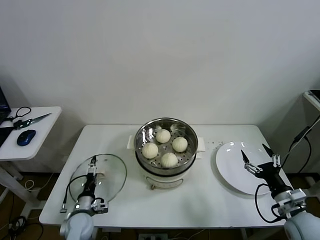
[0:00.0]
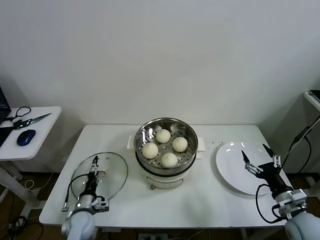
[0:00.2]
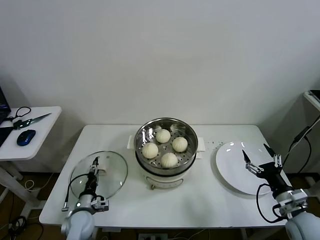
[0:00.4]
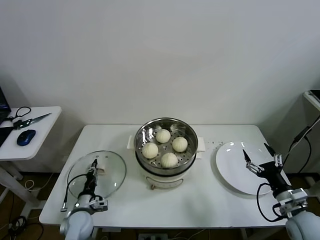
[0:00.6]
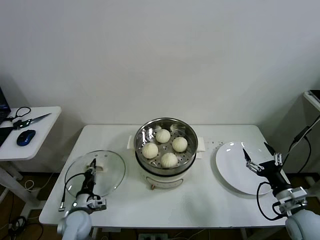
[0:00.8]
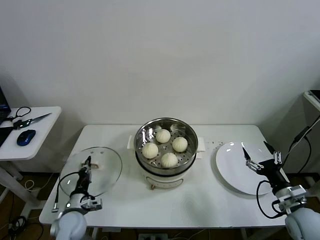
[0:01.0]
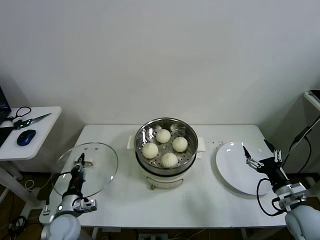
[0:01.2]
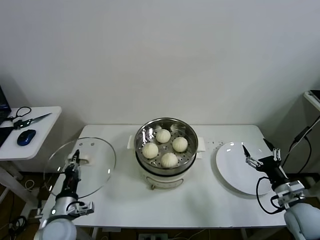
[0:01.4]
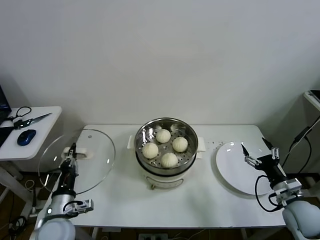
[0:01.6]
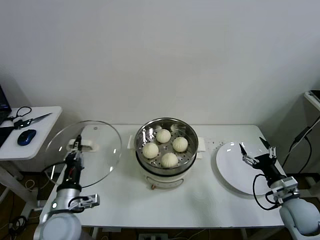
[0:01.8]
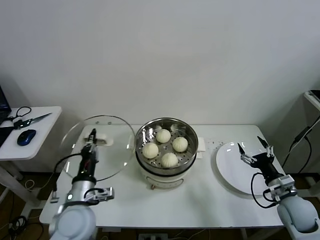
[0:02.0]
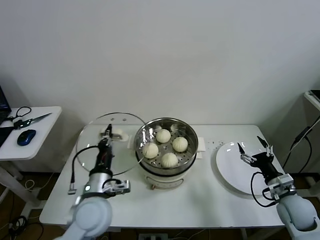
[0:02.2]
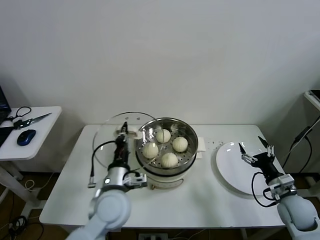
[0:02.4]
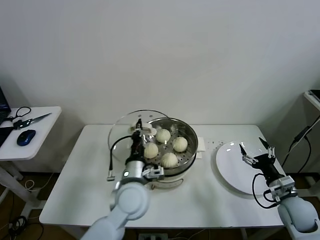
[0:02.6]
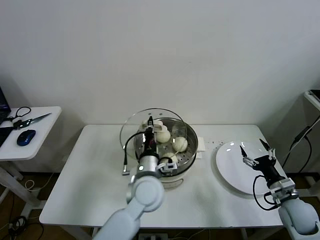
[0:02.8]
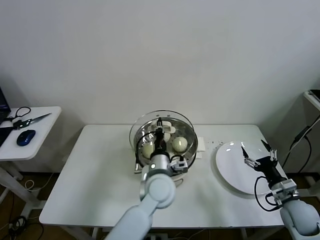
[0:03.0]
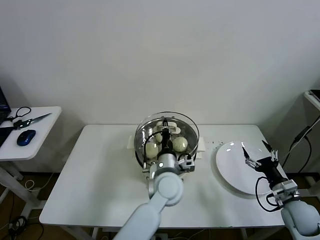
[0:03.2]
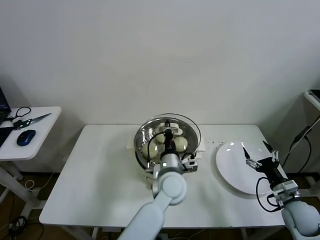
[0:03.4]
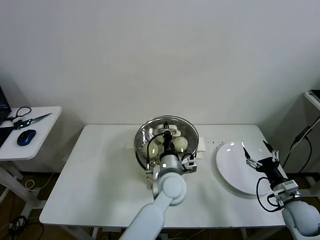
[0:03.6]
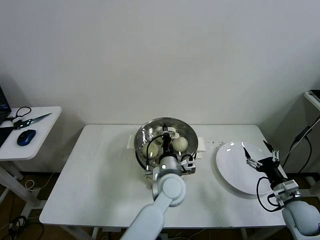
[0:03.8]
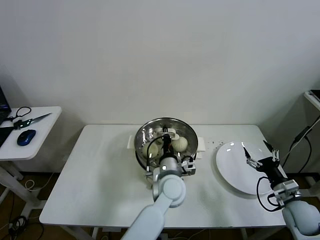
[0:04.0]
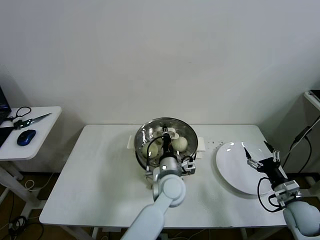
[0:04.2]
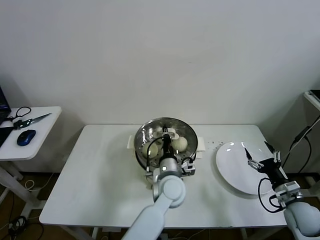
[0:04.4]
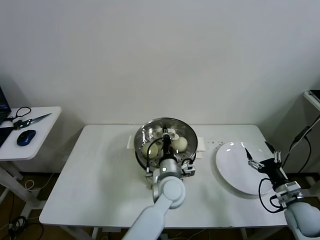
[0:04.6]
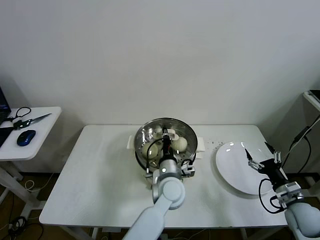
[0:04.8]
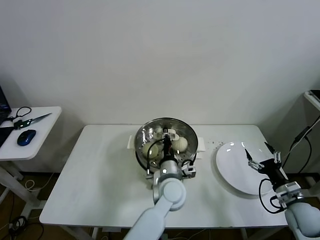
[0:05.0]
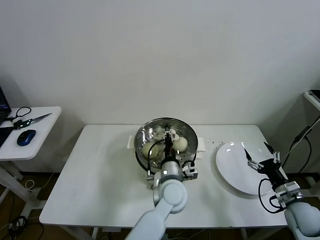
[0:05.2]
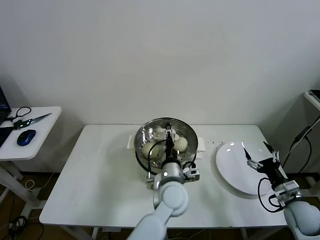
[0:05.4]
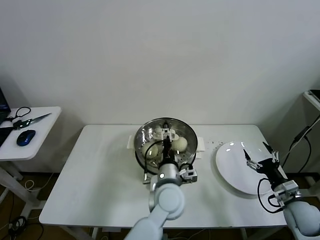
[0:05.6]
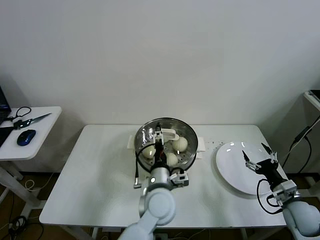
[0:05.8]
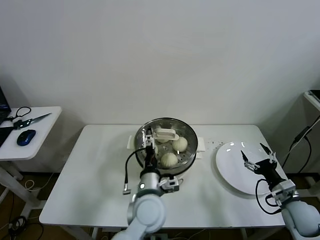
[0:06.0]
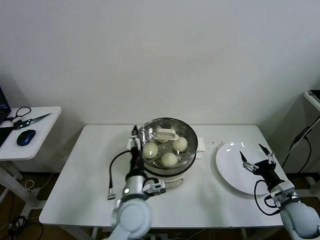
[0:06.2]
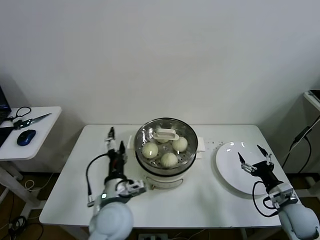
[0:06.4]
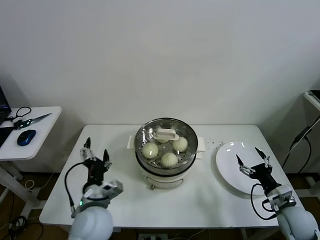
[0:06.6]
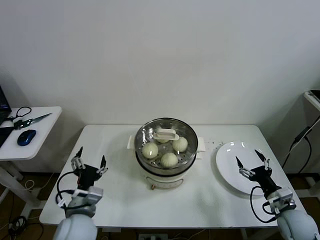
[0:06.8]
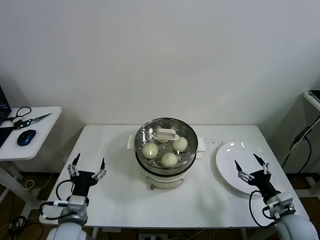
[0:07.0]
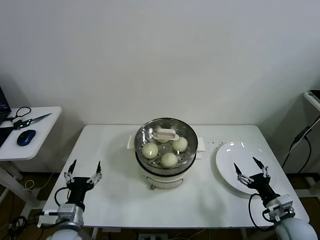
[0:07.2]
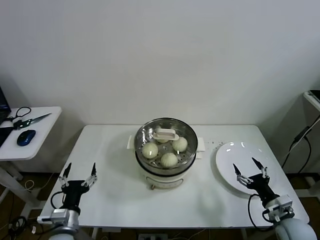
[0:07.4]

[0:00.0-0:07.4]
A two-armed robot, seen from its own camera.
Task of the whole recording: take steamed baozi put them in steamer then cover it.
Step, 0:01.0 to 0:05.4: Place the pot lid on the steamer with left gripper.
0:00.0 to 0:01.4: The left gripper shifts roughly 10 cm upward, and closes up.
0:01.4 to 0:03.0: The left gripper heads to the right, covering approximately 30 cm.
0:03.0 to 0:04.4: The left gripper changes place by approximately 5 cm.
0:04.4 to 0:06.0: The left gripper is displaced backward and to the left by some 10 cm, and opens up.
0:06.0 to 0:07.4: The right gripper changes place by approximately 5 cm. The left gripper travels to the left by some 25 cm.

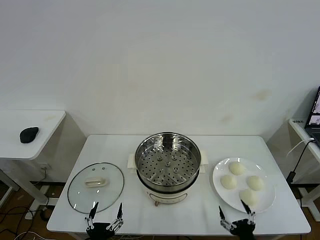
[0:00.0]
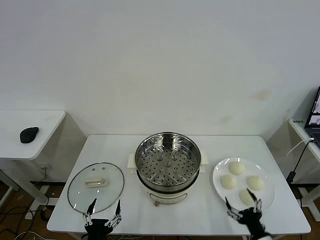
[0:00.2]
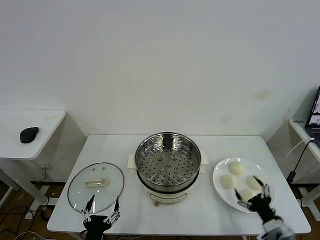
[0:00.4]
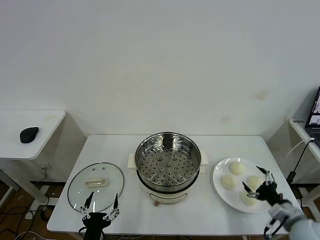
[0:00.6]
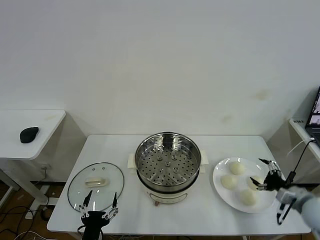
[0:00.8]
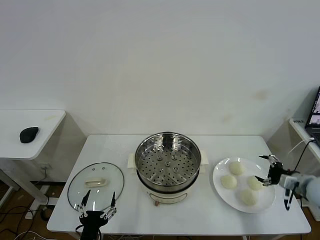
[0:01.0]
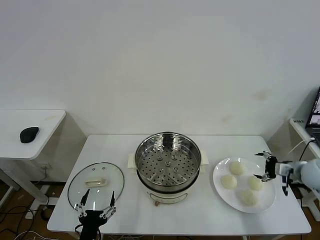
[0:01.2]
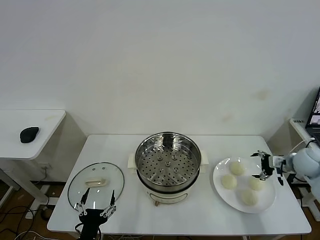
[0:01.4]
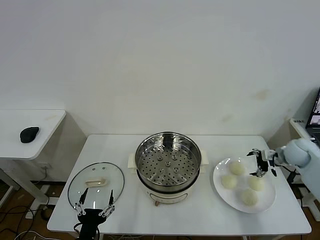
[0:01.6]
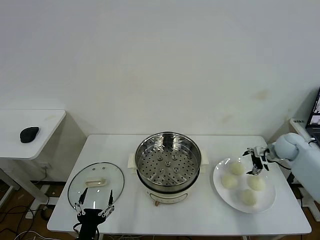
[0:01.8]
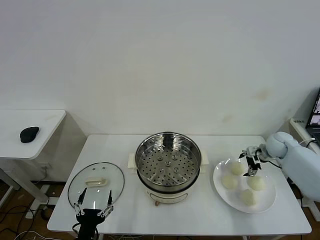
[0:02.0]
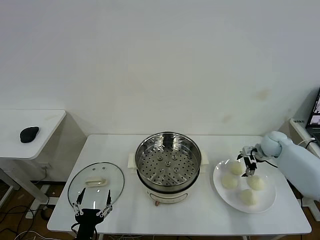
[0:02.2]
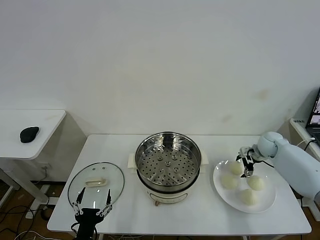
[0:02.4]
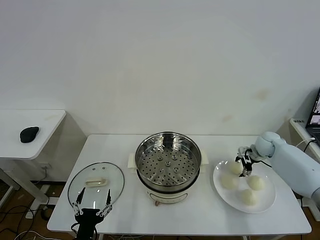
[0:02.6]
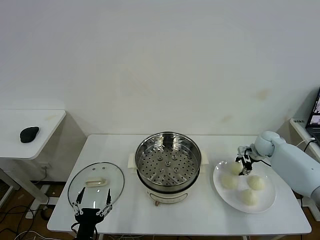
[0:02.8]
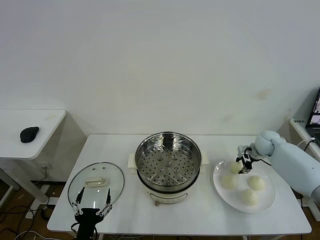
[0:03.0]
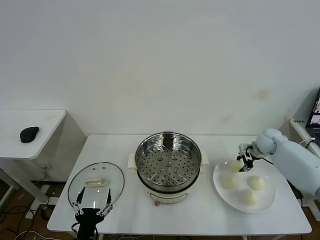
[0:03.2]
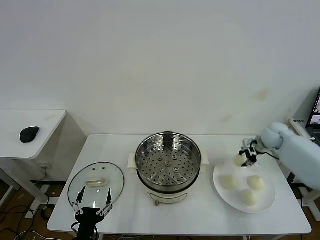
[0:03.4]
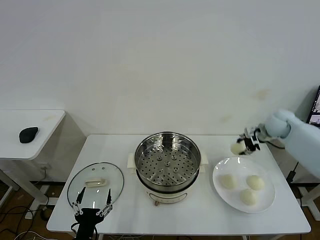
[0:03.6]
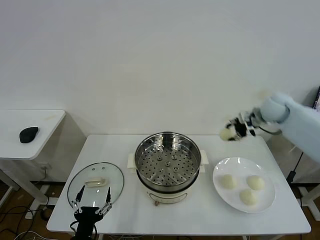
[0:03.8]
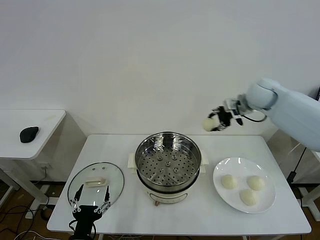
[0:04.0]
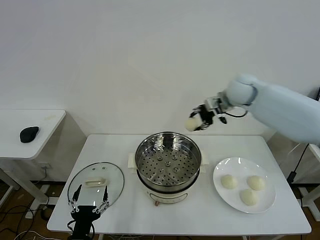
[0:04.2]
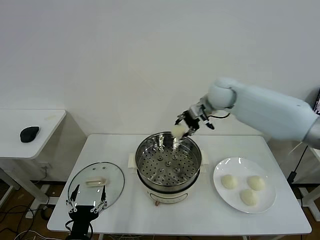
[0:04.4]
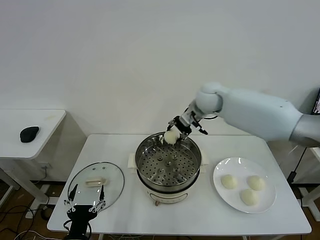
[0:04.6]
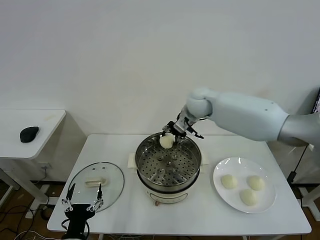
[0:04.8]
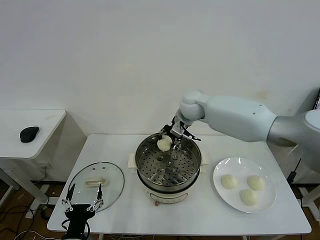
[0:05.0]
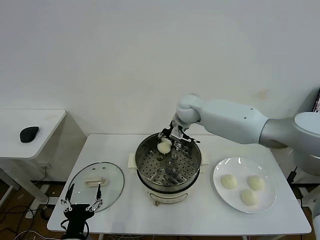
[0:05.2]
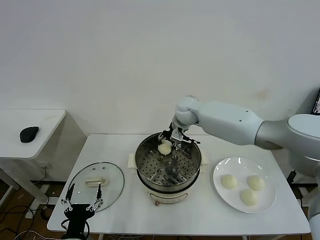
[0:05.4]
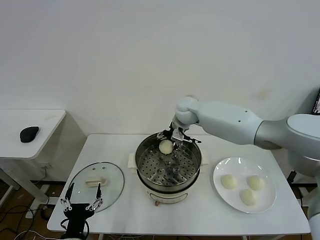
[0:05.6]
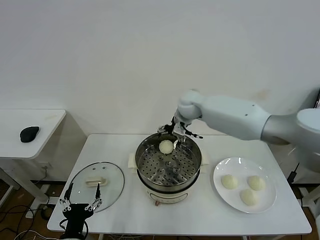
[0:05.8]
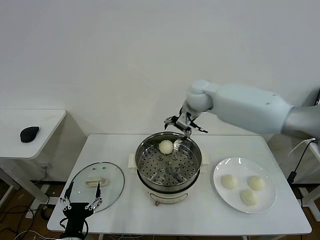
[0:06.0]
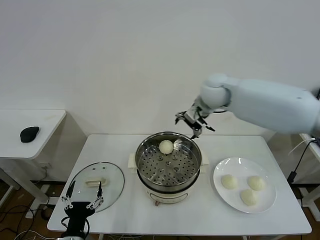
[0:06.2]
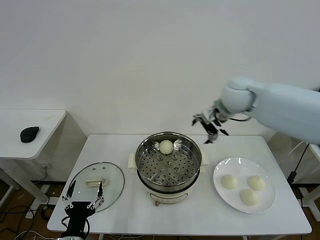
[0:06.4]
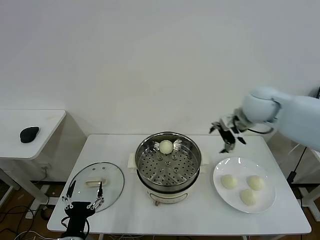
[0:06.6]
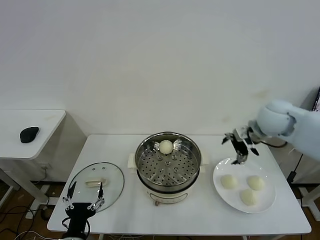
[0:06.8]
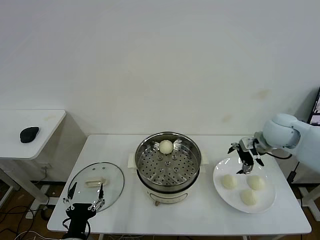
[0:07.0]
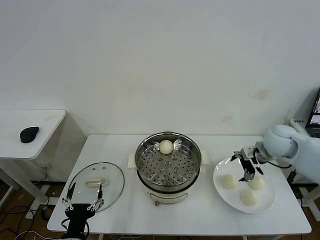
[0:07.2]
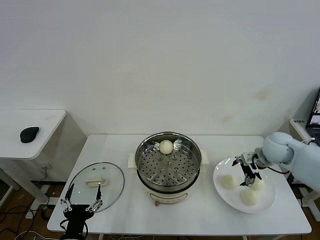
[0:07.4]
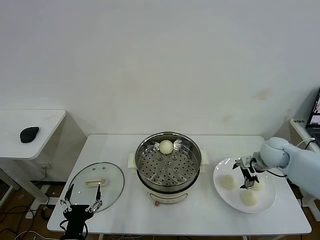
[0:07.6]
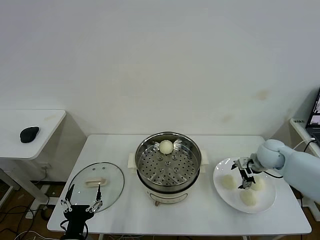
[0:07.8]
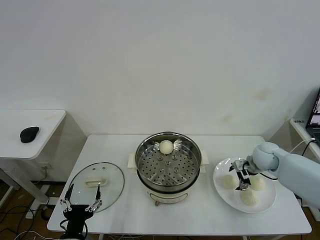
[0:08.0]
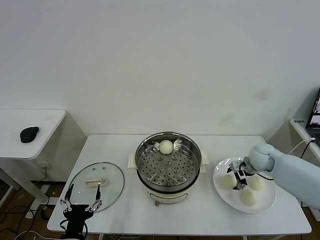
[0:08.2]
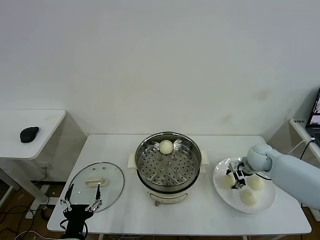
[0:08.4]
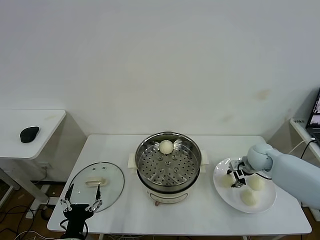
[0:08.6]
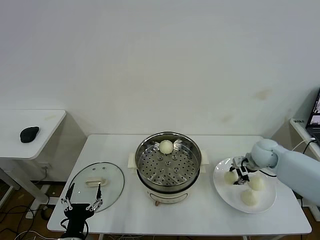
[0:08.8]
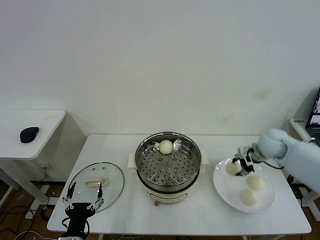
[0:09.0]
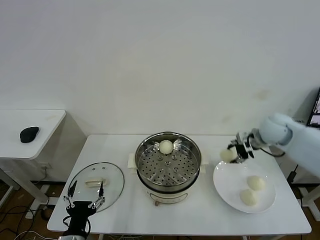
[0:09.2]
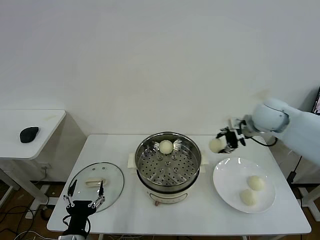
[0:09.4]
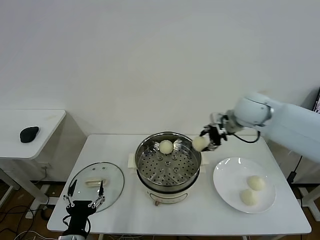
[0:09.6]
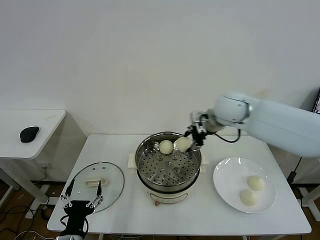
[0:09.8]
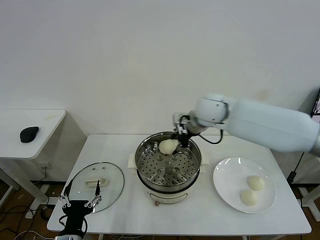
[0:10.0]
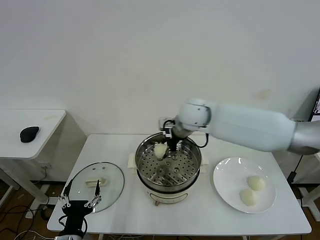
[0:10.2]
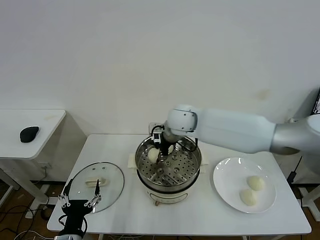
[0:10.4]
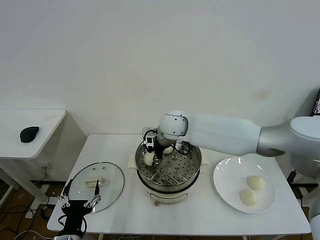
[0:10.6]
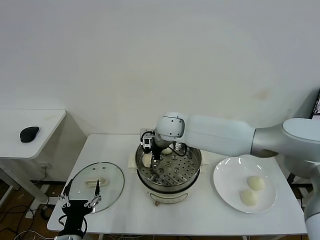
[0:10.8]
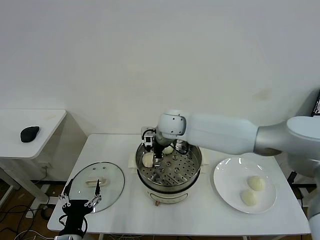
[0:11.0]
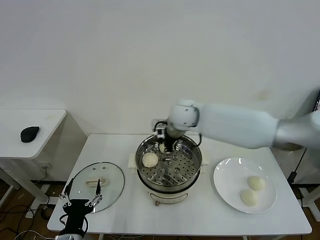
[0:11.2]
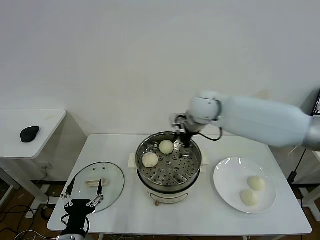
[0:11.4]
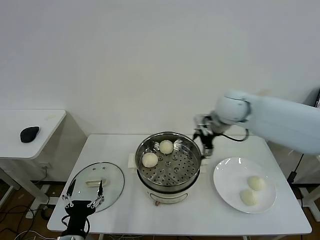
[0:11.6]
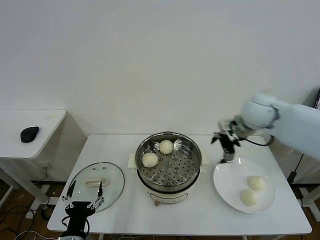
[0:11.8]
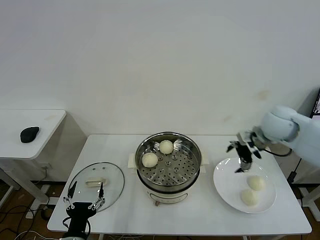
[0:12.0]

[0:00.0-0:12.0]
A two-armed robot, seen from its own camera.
Task of the whole recording: take steamed baozi put them in steamer then cover it.
Step, 0:00.0 to 0:02.8: Grasp the baozi in the plate with right gripper.
Step, 0:03.0 to 0:05.6: Place the baozi on the steamer with right gripper.
Step, 0:05.8 to 0:08.4: Grasp the baozi in the plate with right gripper.
Step, 0:08.8 to 0:11.0: Place the baozi on the steamer with right gripper.
0:01.6 to 0:03.0: The right gripper travels forward and to the left by some 10 cm, and closes.
0:03.0 to 0:04.4: The right gripper heads to the left and upward, covering about 30 cm.
0:04.4 to 0:06.0: The right gripper travels downward and back again, some 5 cm each way, and opens.
0:06.0 to 0:07.6: The right gripper goes about 30 cm to the right, downward and backward.
0:07.6 to 0:09.0: The right gripper goes approximately 5 cm upward, and closes its fingers.
0:09.0 to 0:10.4: The right gripper goes approximately 30 cm to the left.
0:10.4 to 0:12.0: The right gripper moves to the right, some 30 cm, and opens up.

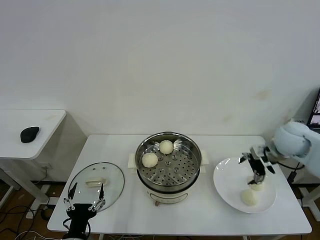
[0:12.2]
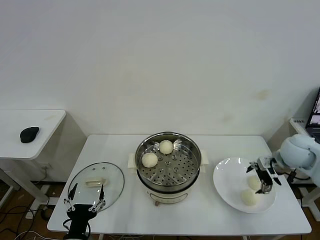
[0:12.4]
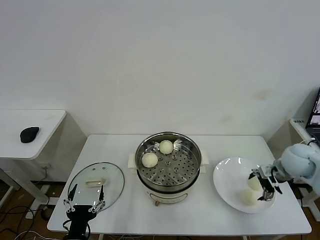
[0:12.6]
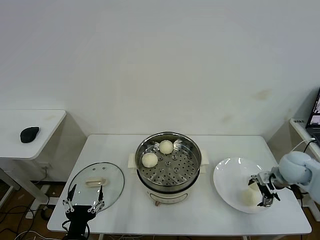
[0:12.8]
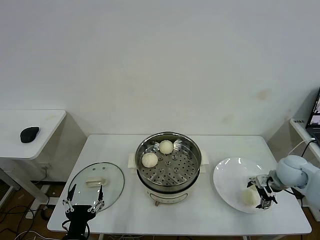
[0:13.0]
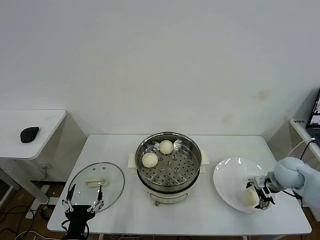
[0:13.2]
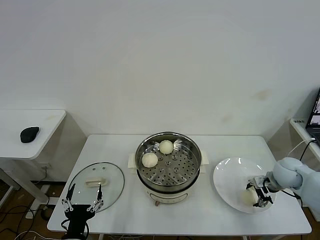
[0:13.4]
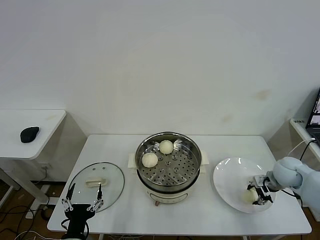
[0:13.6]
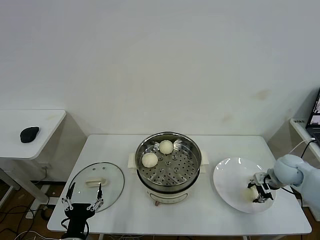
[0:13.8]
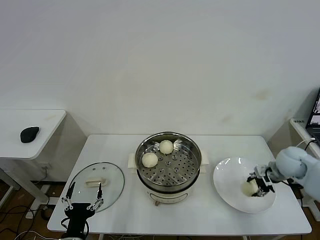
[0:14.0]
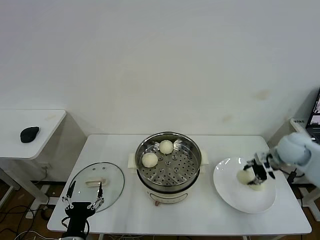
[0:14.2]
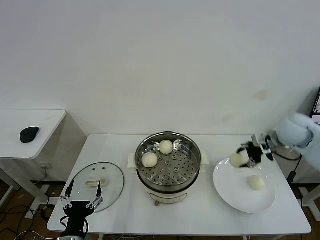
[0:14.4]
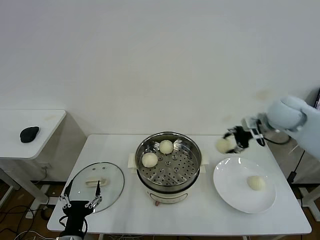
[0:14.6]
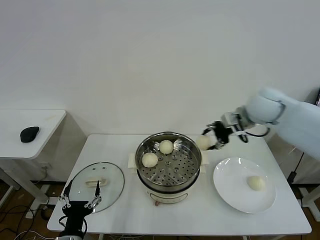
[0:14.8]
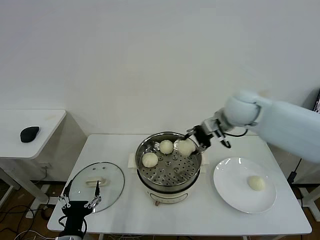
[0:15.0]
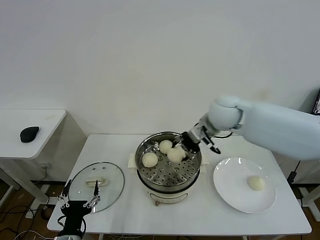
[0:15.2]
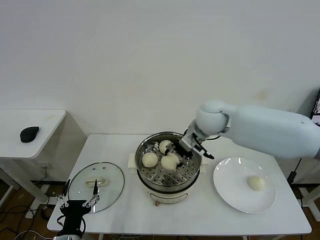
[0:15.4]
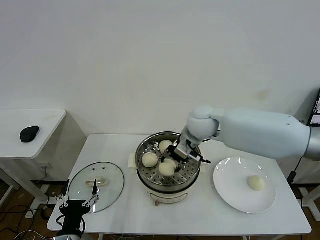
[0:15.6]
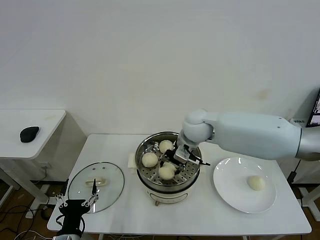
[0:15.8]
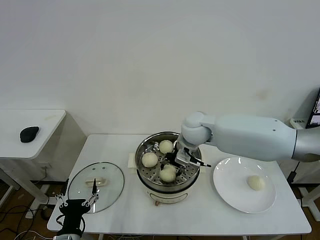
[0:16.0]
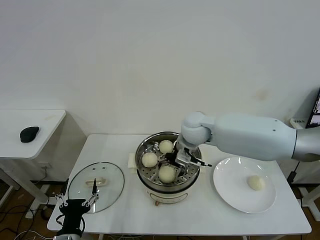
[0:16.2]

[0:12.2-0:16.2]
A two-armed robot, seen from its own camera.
Task of the whole recording: take steamed baozi put them in steamer then cover it.
Step, 0:12.2 to 0:13.6: Grasp the baozi in the plate with right gripper.
Step, 0:13.8 to 0:16.2: Place the baozi on the steamer with right gripper.
0:12.2 to 0:13.6: The right gripper shifts approximately 10 cm downward, and closes its fingers.
0:13.6 to 0:14.8: The right gripper heads upward and to the left, covering approximately 25 cm.
0:14.8 to 0:16.2: The right gripper shifts roughly 20 cm to the left and downward, and opens up.
